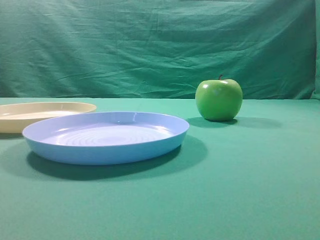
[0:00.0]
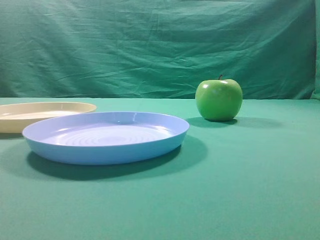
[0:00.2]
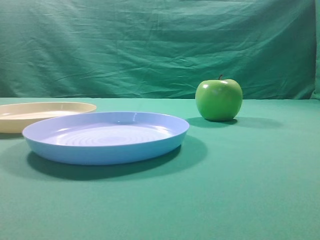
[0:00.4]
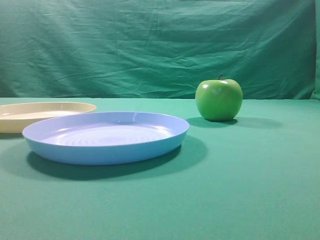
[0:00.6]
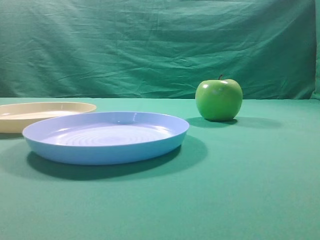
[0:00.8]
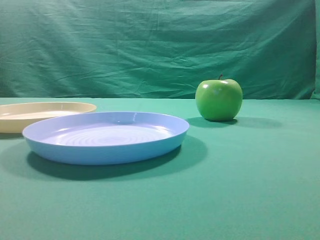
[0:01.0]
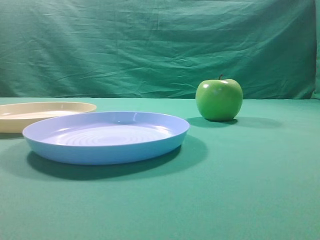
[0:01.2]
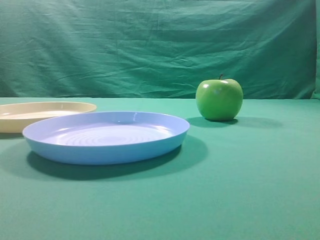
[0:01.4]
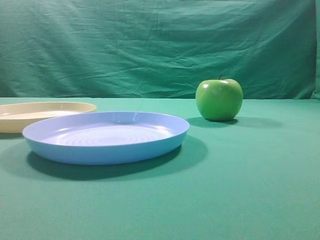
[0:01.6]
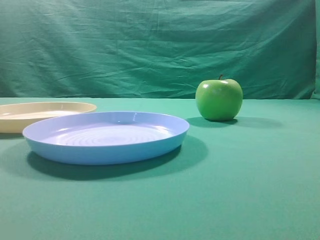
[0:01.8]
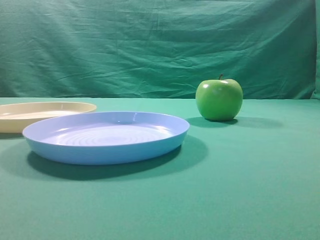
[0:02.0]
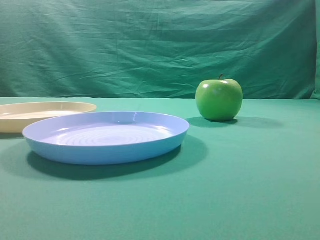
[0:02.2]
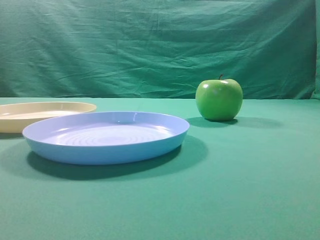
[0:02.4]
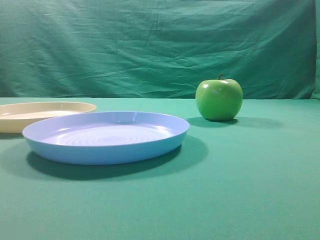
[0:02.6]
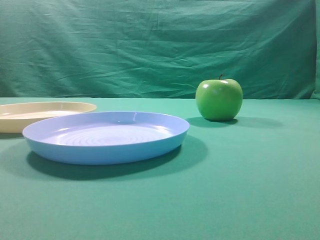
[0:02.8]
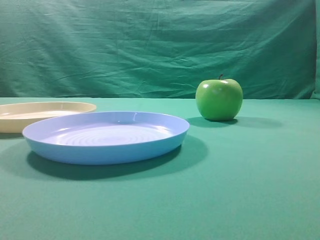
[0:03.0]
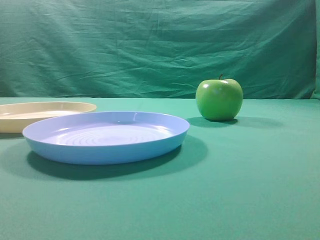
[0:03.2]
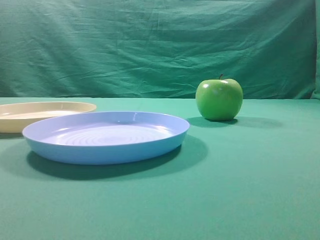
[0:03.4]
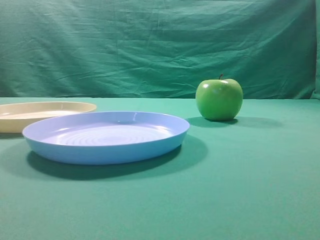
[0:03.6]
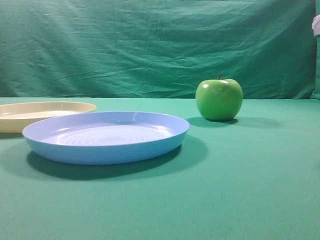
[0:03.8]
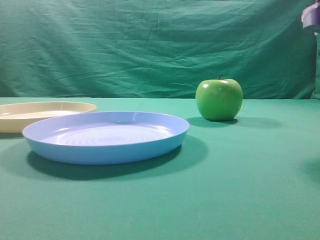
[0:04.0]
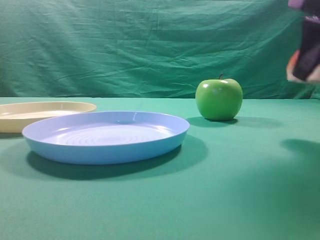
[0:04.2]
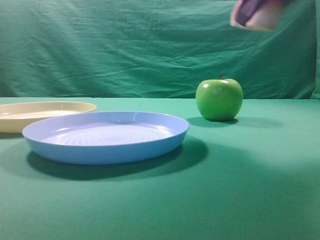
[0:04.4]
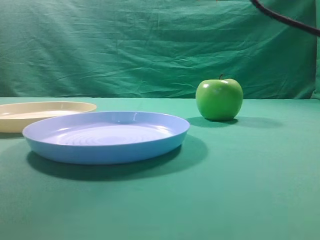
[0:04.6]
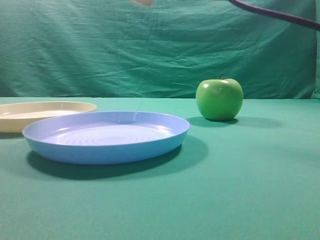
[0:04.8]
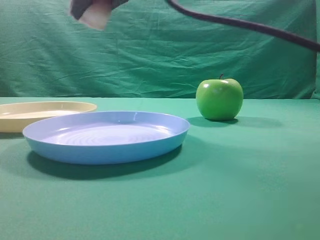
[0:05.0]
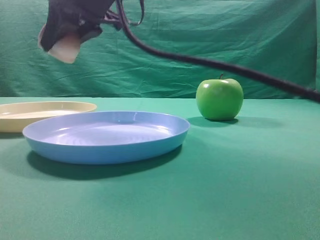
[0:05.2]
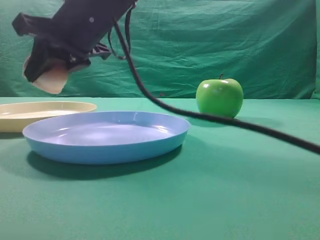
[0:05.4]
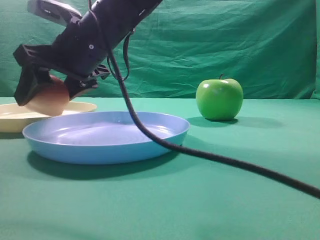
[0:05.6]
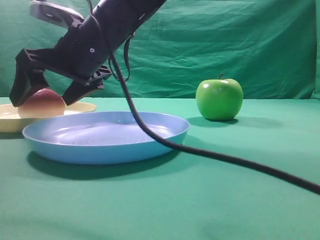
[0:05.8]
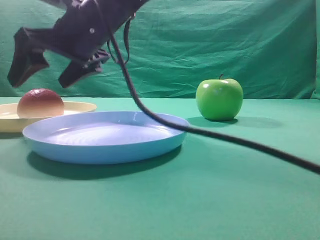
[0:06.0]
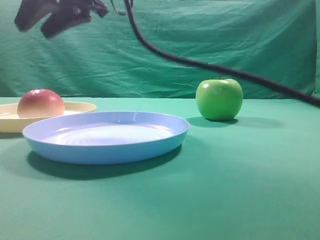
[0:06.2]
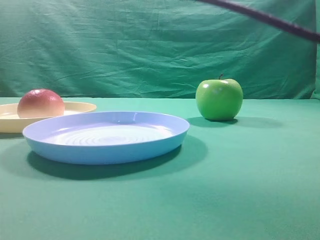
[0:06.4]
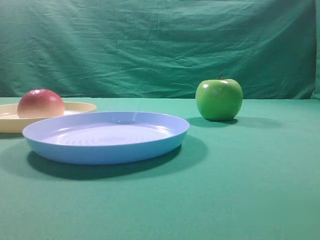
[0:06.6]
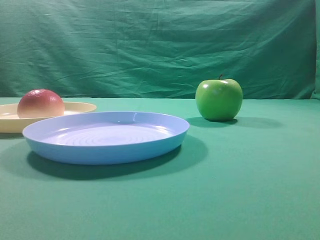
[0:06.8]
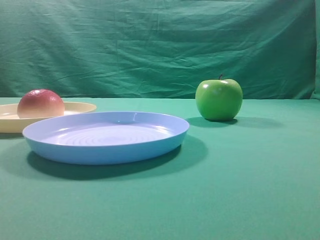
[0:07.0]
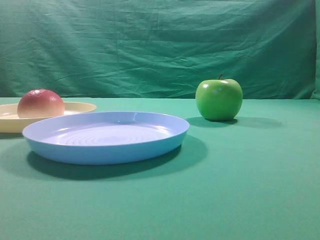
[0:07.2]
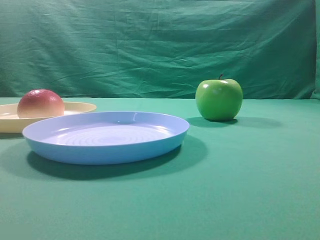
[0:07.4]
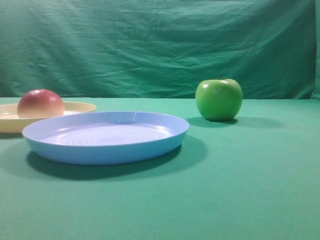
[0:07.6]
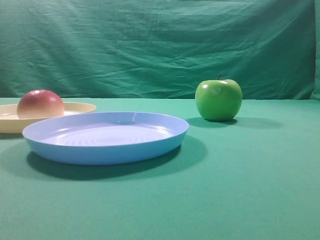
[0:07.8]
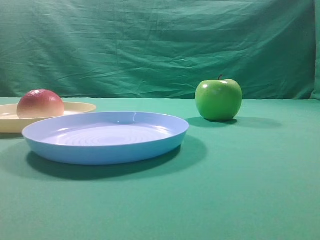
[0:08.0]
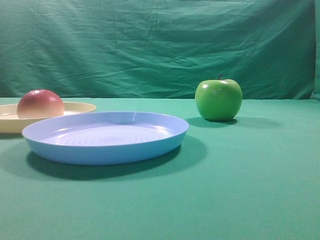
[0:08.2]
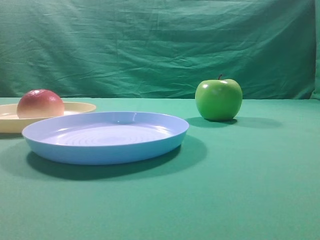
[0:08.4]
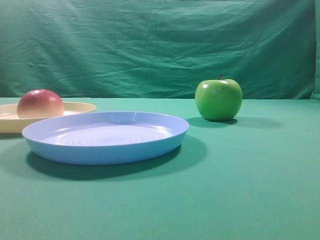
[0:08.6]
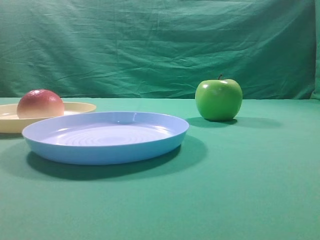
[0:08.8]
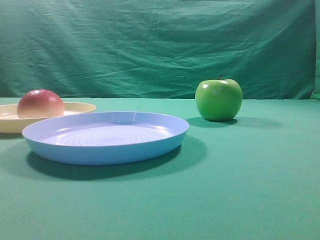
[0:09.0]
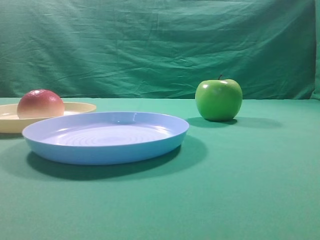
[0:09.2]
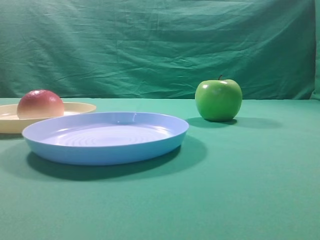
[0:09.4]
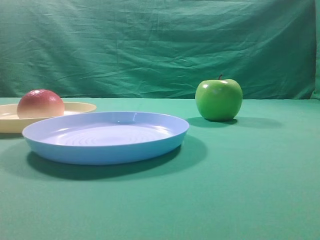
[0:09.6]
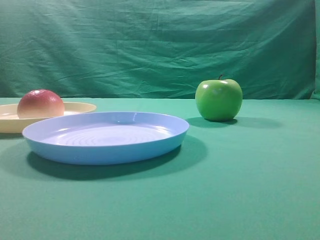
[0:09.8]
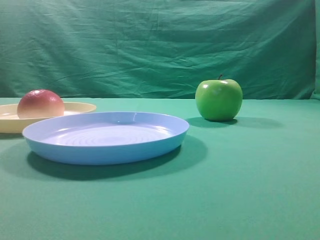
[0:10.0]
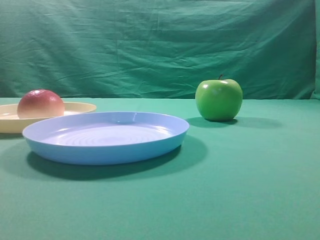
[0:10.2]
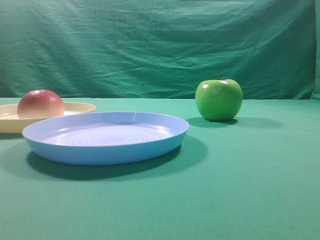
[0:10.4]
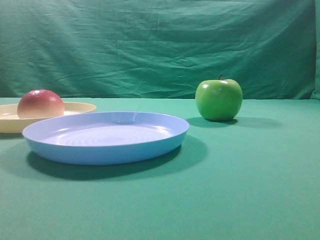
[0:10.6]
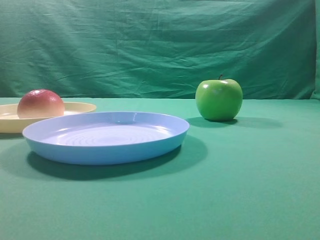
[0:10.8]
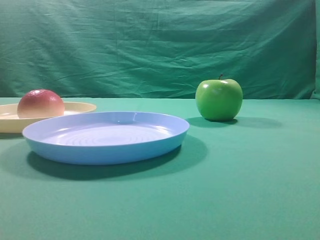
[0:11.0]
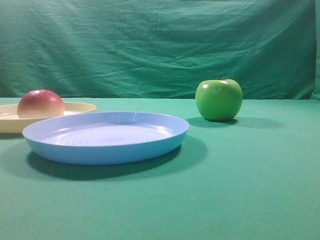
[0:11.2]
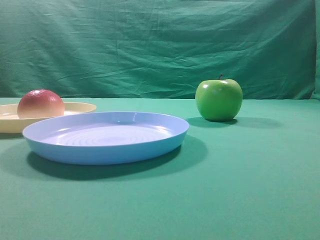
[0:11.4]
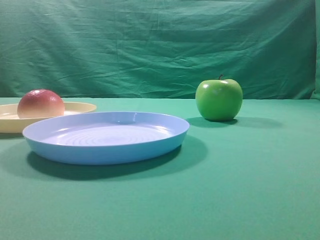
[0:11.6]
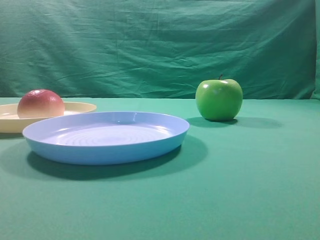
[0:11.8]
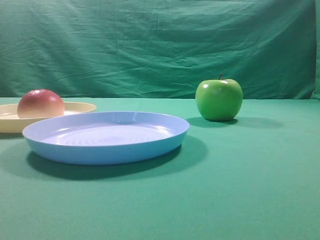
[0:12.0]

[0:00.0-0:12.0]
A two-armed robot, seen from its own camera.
Step, 0:04.2 to 0:06.0: Place the picked object on the yellow plate.

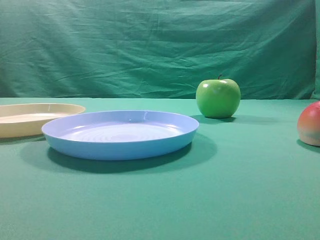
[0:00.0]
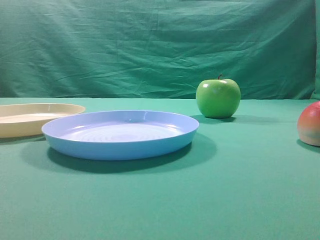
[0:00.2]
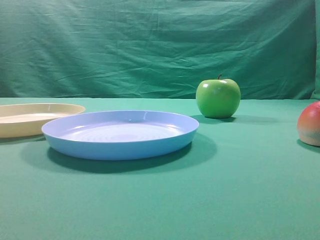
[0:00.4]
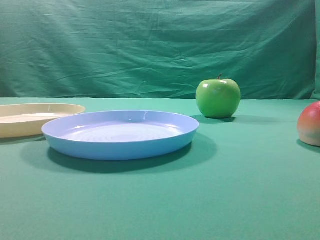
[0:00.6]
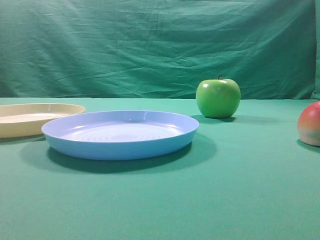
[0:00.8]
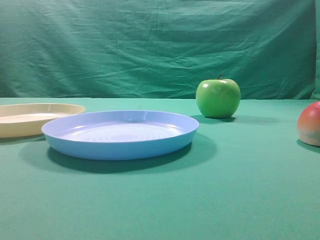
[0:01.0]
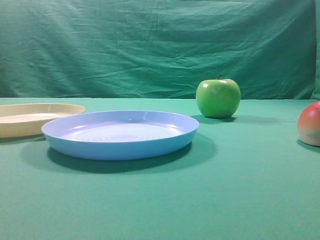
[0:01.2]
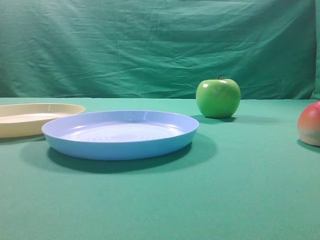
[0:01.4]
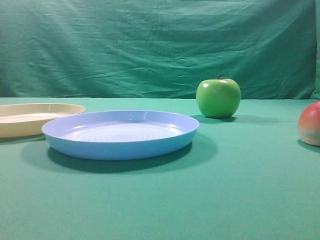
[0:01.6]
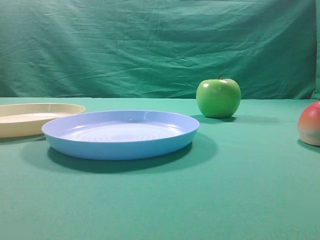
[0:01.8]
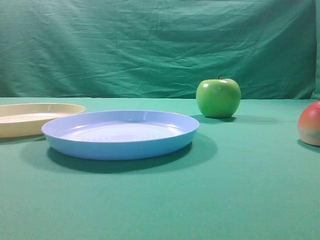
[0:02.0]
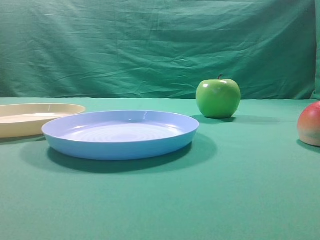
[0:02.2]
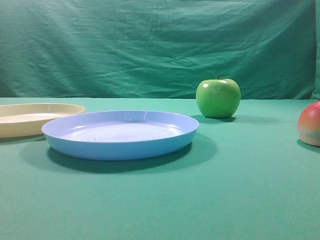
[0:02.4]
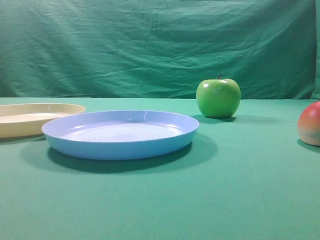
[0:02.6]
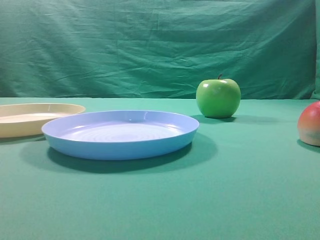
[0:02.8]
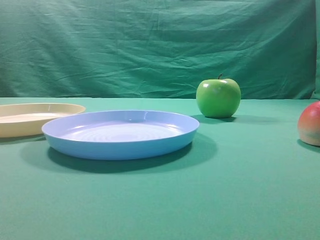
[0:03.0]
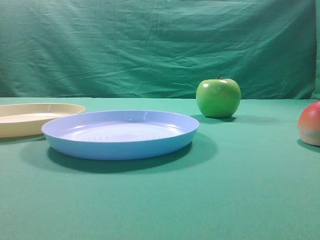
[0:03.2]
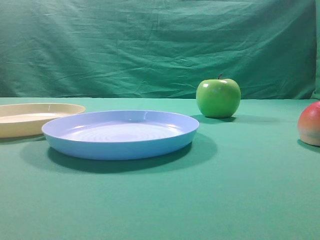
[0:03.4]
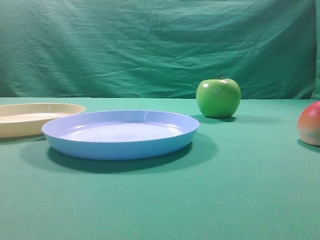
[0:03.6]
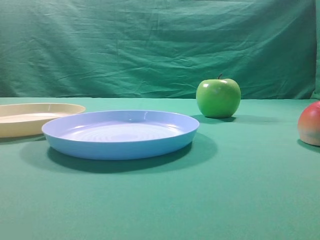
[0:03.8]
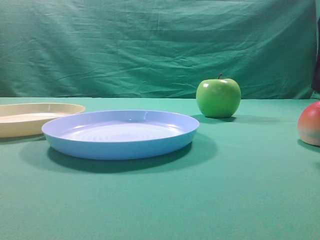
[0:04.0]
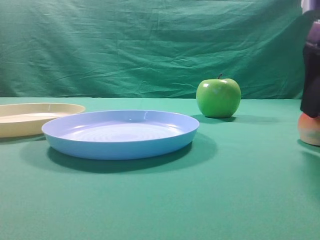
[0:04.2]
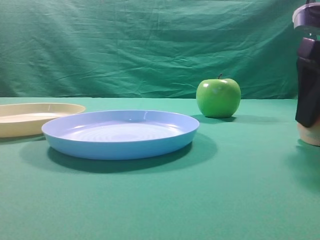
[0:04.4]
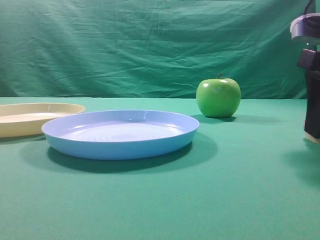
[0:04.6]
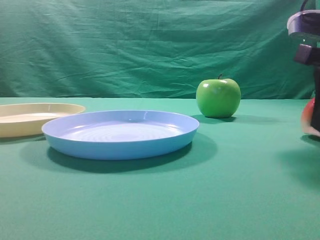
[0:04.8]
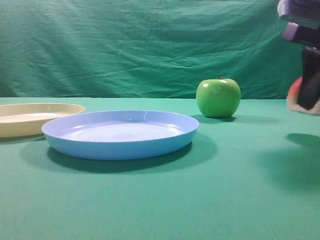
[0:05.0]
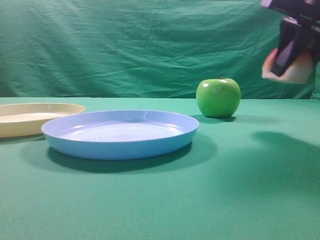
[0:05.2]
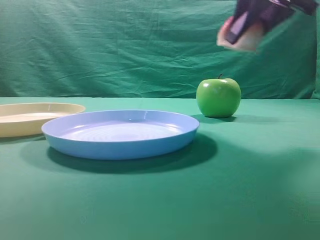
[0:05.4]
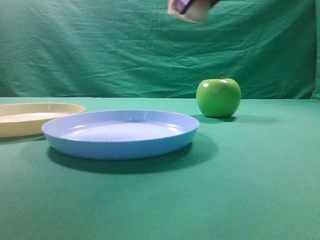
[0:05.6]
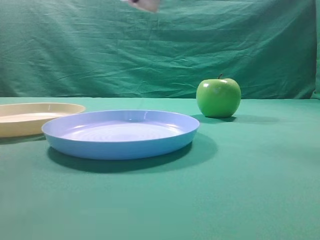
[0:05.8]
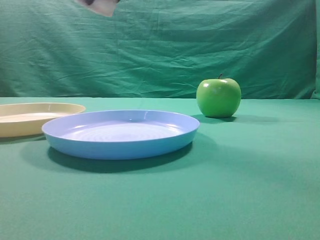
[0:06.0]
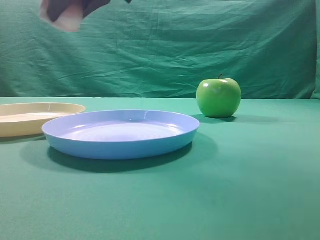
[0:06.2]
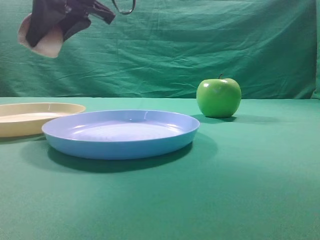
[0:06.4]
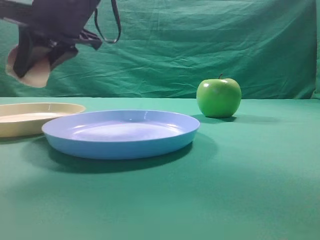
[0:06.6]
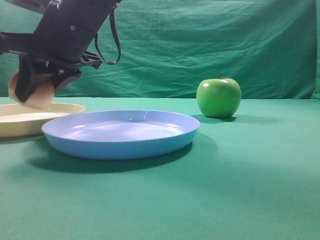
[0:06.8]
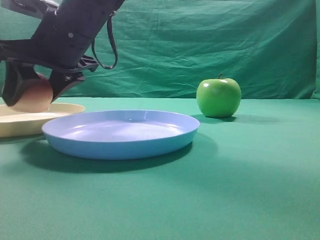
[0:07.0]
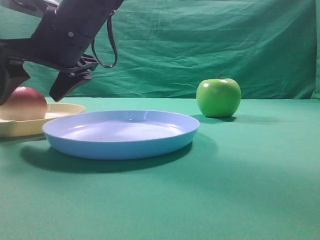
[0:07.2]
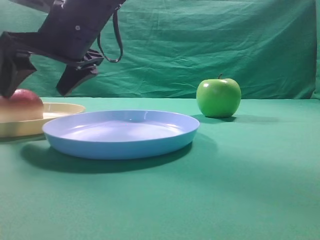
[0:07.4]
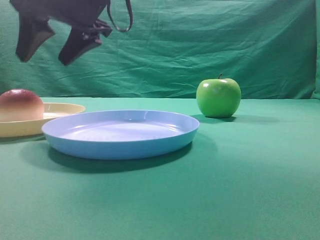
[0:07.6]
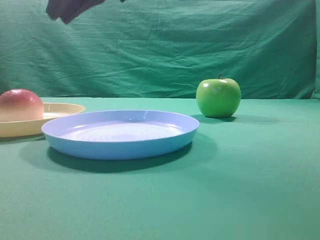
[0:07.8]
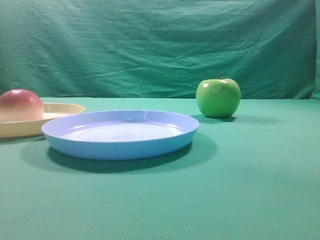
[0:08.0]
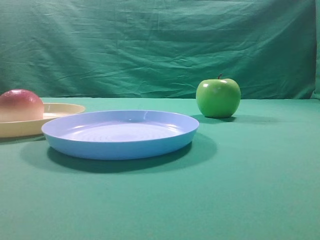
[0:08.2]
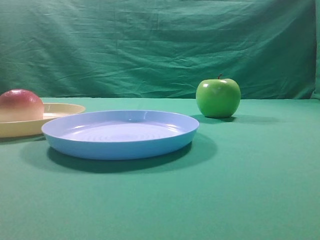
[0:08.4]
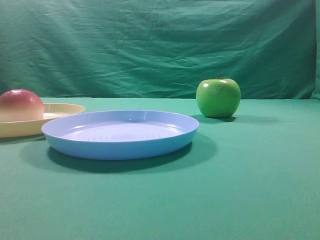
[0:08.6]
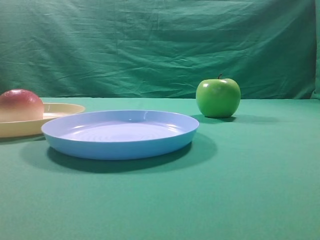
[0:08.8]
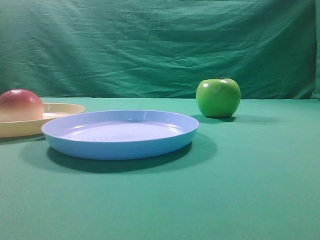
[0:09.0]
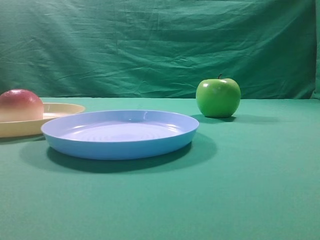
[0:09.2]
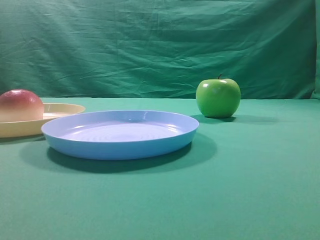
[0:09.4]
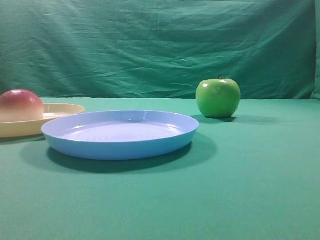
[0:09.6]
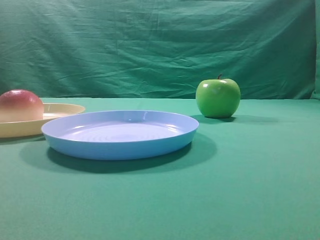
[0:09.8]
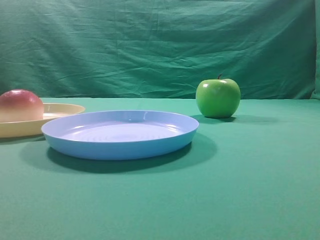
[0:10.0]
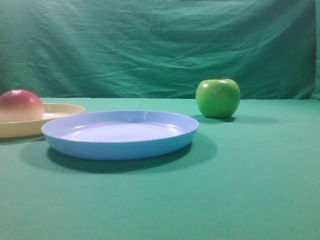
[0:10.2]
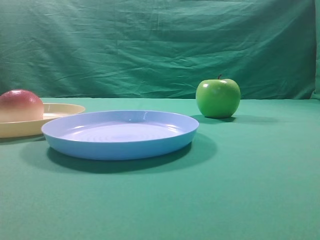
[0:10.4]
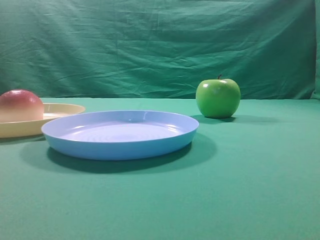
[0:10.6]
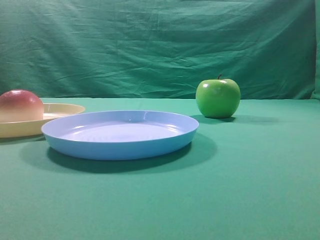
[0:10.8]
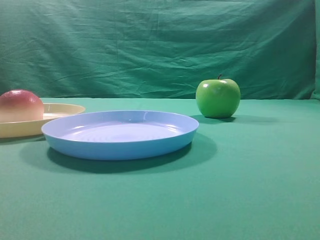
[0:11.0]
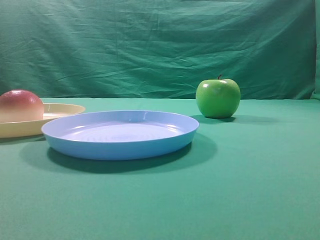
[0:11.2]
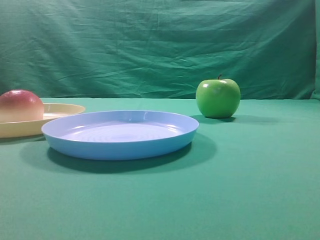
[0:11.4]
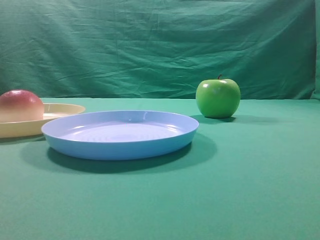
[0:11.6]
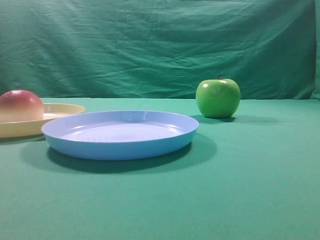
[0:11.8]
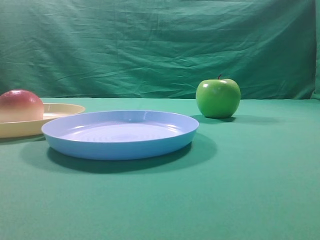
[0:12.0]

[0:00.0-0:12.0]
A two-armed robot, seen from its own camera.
Step, 0:05.2 to 0:07.4: Place the picked object on the yellow plate.
